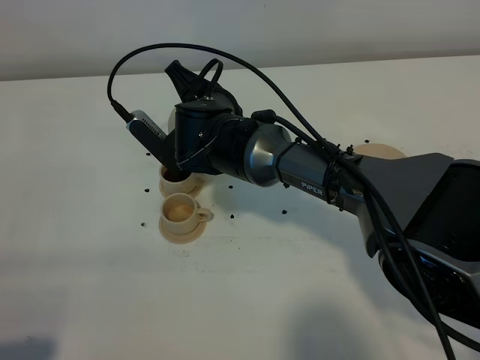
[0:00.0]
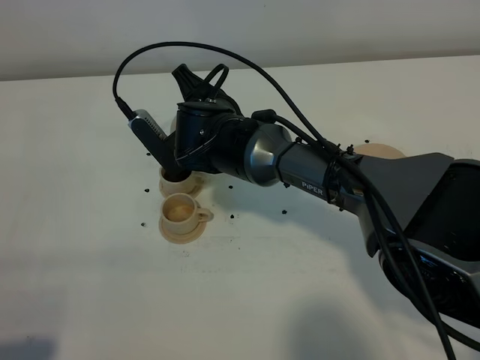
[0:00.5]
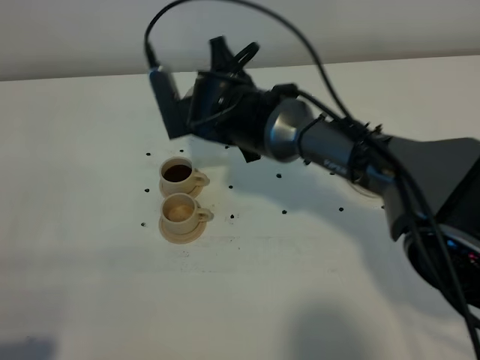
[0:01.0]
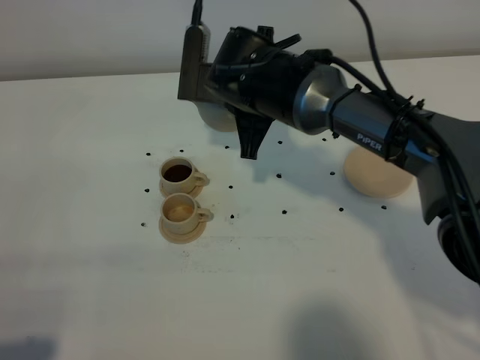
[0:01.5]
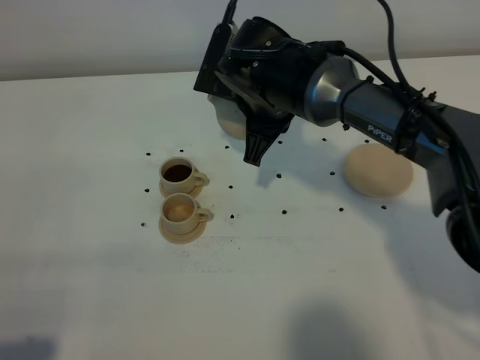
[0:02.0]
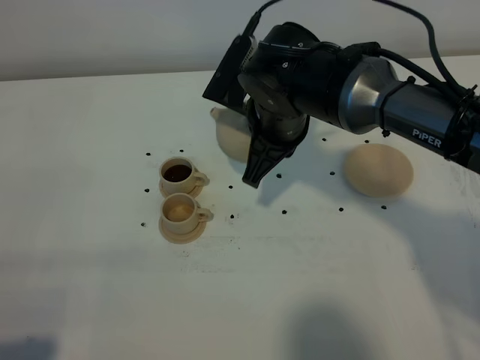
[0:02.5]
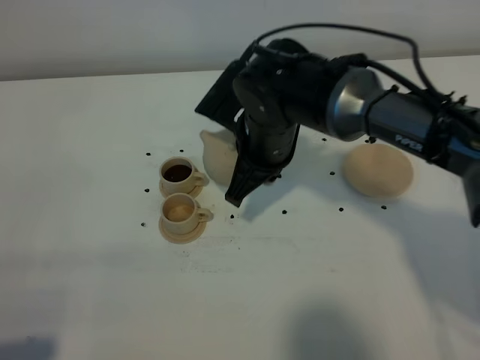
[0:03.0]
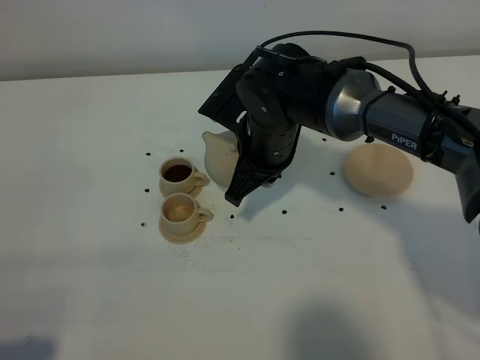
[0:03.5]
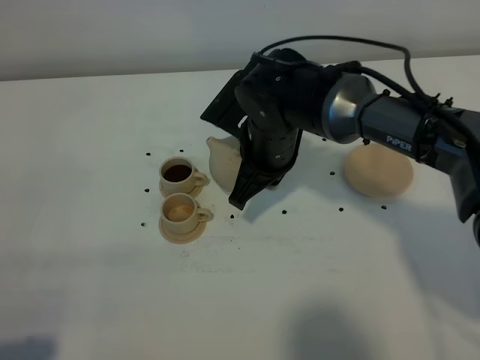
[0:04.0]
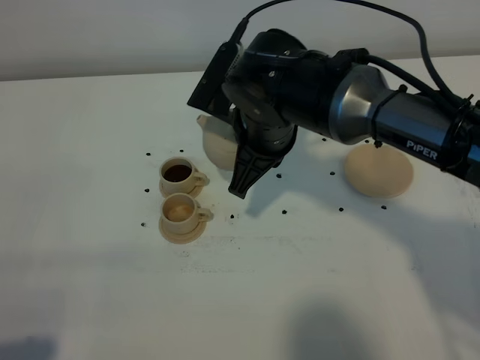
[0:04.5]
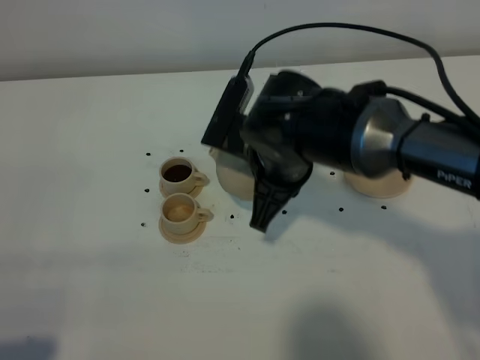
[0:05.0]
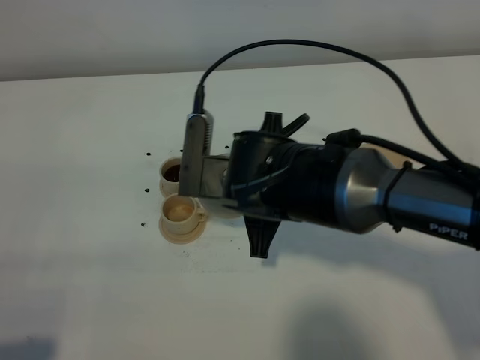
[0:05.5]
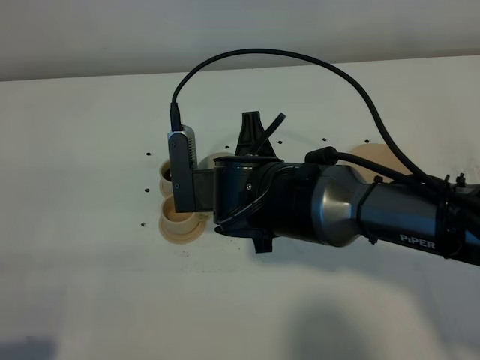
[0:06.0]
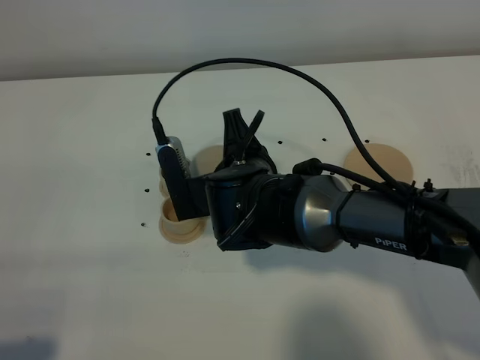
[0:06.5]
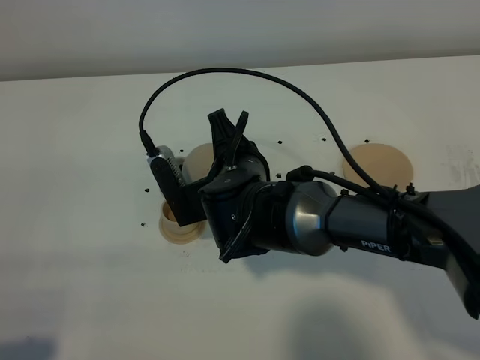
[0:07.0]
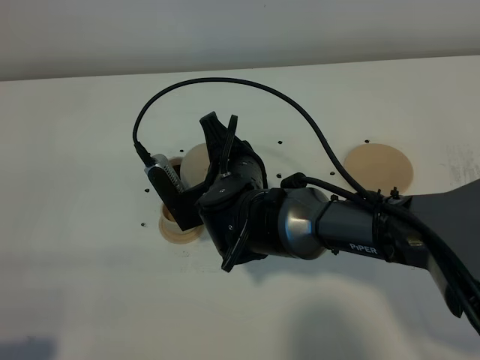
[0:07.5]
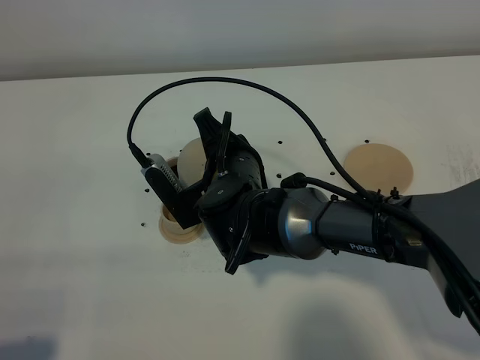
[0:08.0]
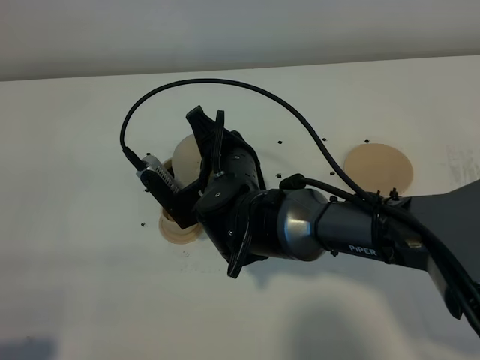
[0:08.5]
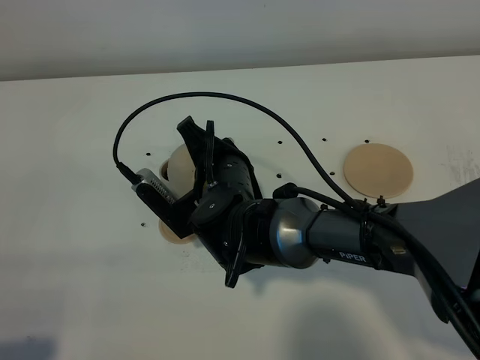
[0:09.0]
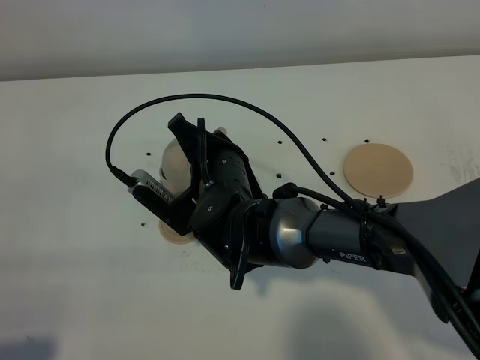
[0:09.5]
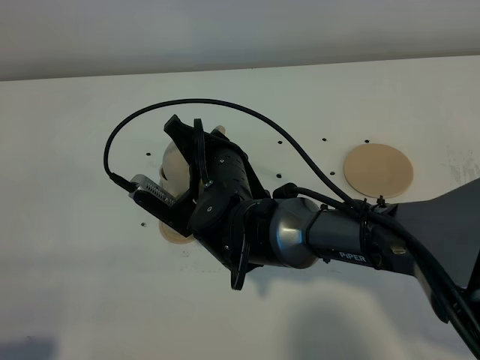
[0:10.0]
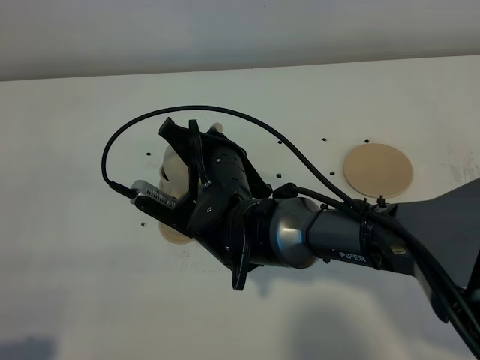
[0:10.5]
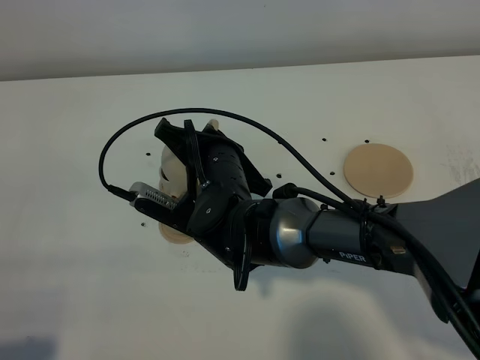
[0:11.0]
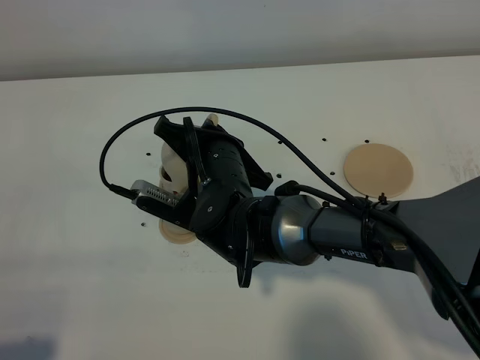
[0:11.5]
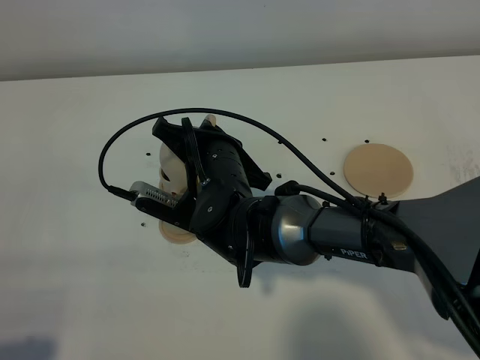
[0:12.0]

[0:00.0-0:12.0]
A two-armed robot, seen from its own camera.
Task of the whole recording: grasp the brown teapot and pour the tea into the two brown teacups one by one, put the brown teapot back in its original place.
0:00.0 to 0:02.0: The right gripper moves to the right, approximately 5 cm.
0:04.0 to 0:06.0: The right gripper travels backward by some 10 cm.
0:08.0 to 0:10.0: The grippers stay close to where they were, moving slightly.
0:10.0 to 0:12.0: The grippers make only small movements.

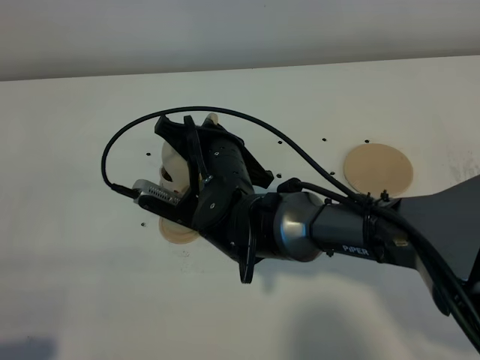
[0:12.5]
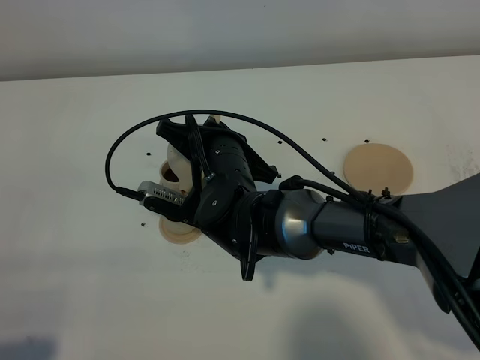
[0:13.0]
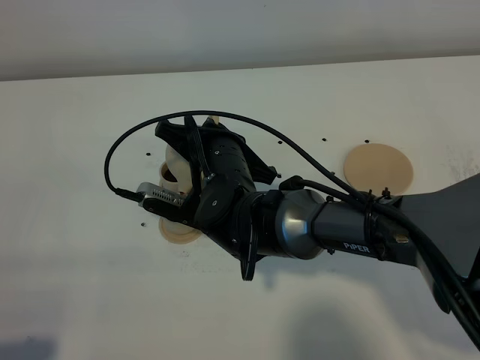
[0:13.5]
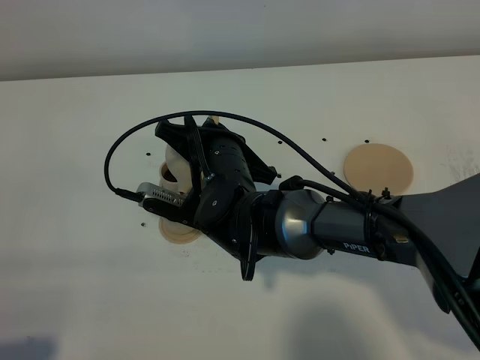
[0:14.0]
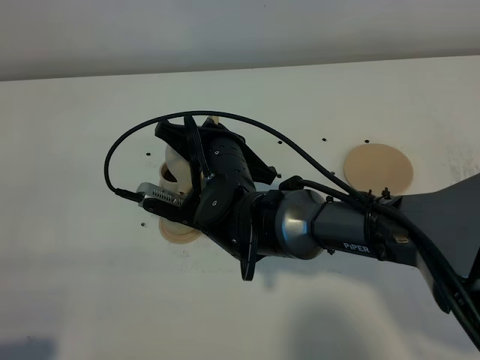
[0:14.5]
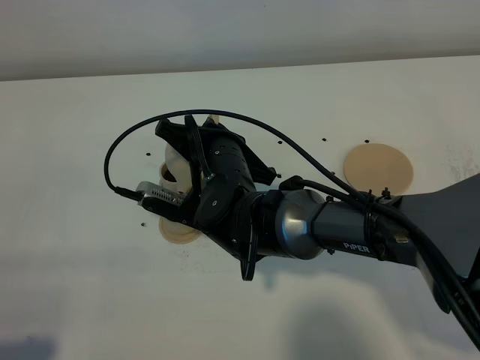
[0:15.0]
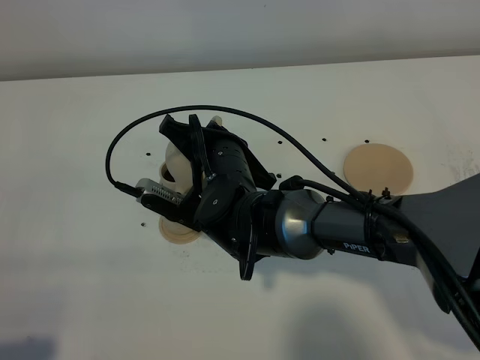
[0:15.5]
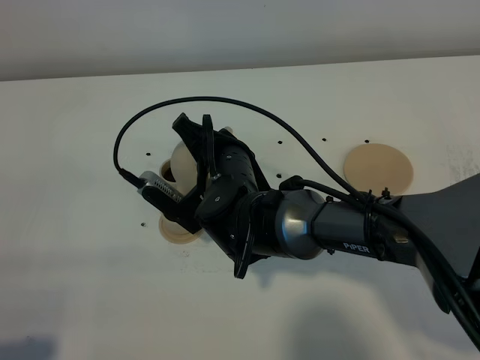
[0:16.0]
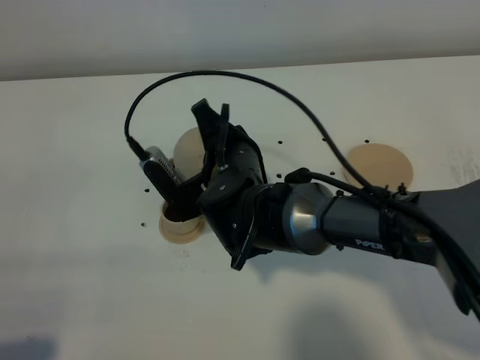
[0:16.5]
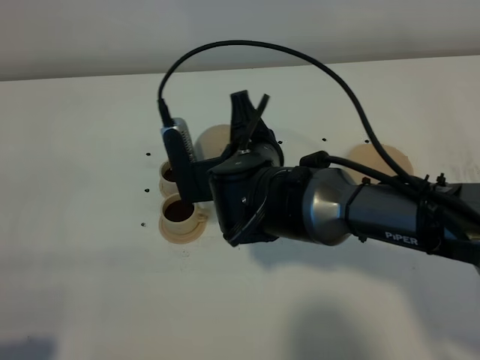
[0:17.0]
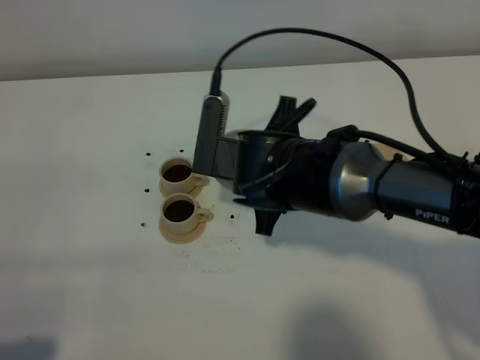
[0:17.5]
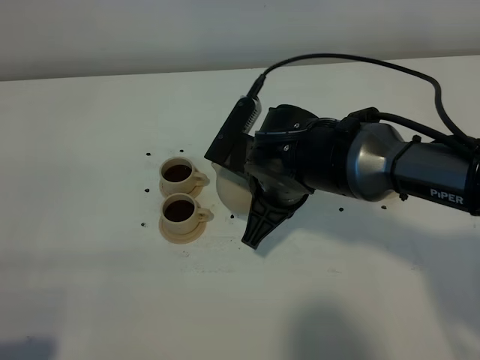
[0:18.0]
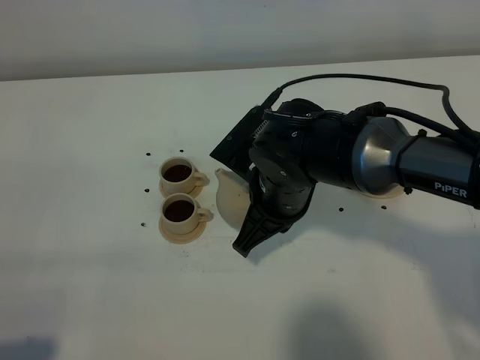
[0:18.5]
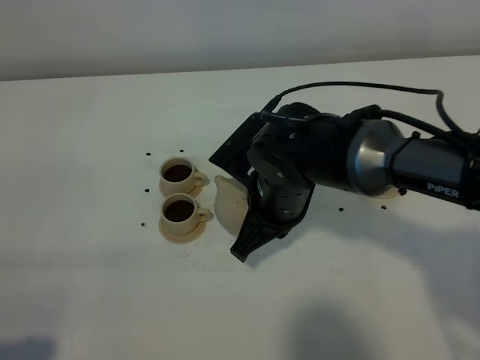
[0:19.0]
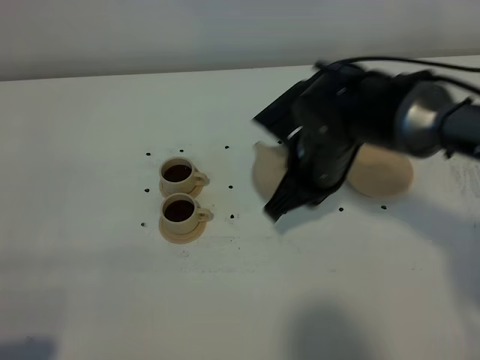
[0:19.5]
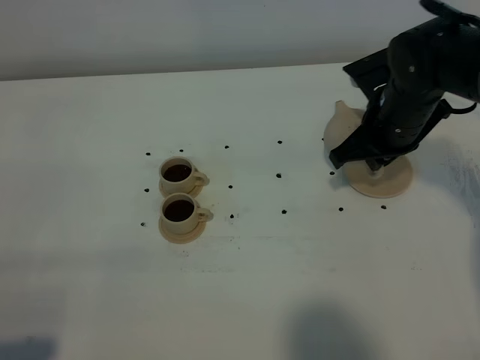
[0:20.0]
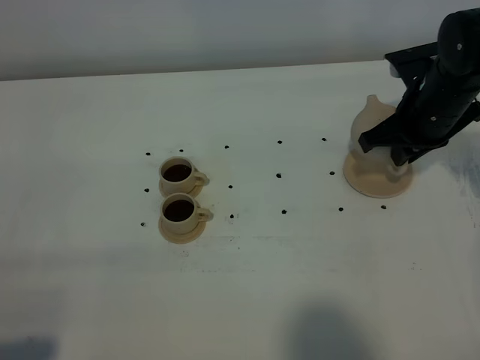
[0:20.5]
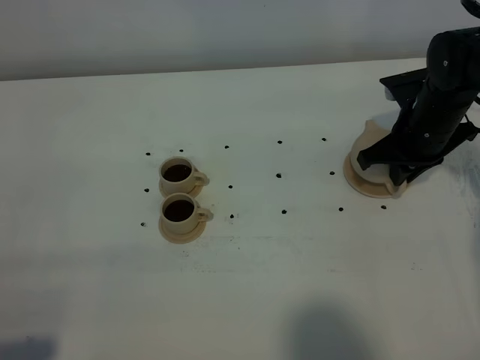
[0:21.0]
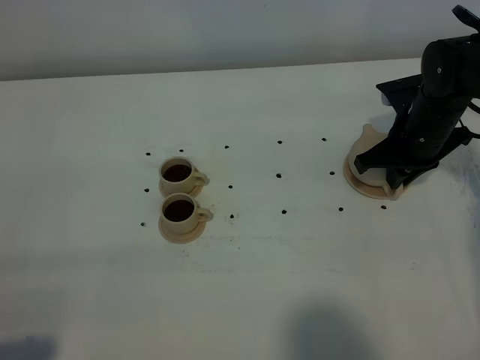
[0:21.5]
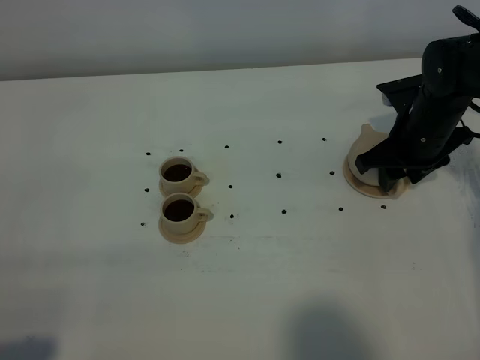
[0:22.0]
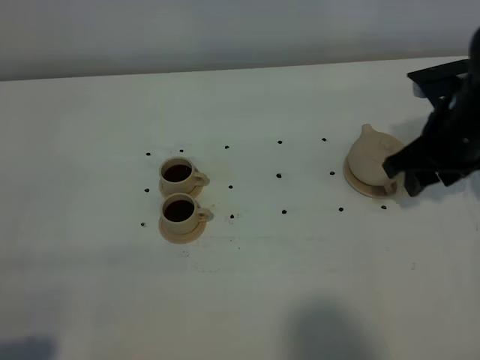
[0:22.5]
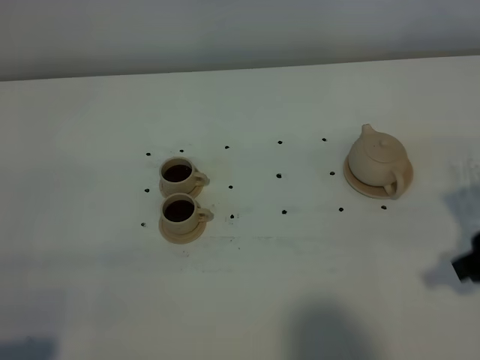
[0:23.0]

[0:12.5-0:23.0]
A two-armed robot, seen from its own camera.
Task of the whole recording: grasp the brown teapot and pour the tea into the two brown teacups one by one, put the brown teapot back in its original place.
Step, 0:12.5 to 0:17.0: Pour tea into the teacup with the right gripper.
0:12.5 to 0:14.5: The two grippers keep their place.
0:16.5 to 0:19.0: The right gripper shifts by roughly 5 cm.
0:19.0 to 0:21.0: The right gripper is displaced to the right and forward by some 20 cm.
0:21.0 to 0:23.0: The right gripper moves backward, some 20 cm, and opens up.

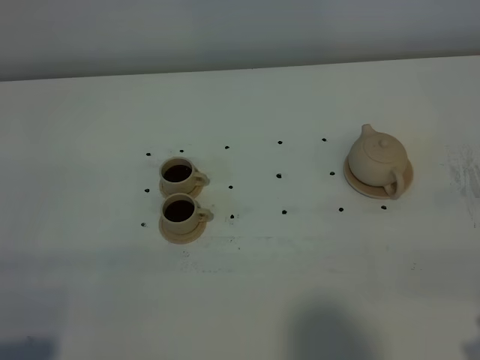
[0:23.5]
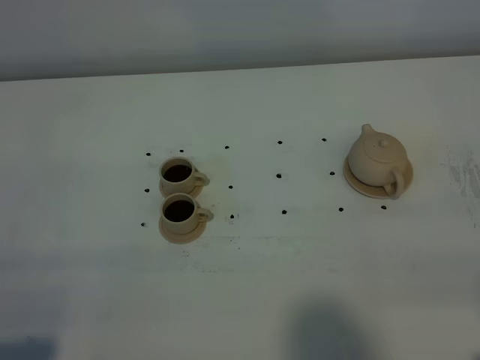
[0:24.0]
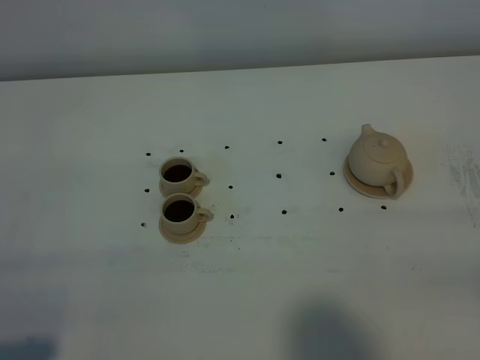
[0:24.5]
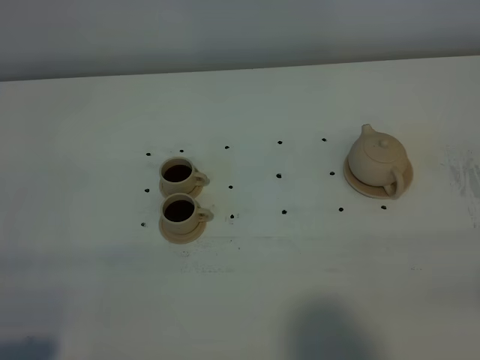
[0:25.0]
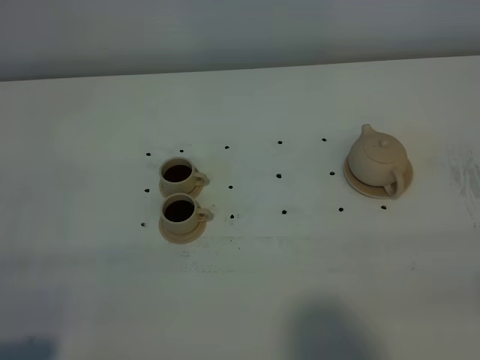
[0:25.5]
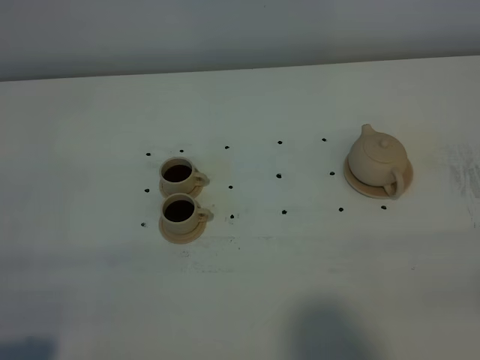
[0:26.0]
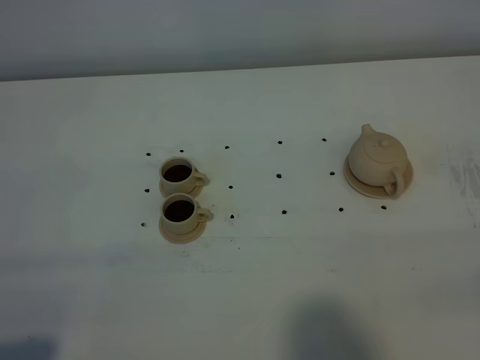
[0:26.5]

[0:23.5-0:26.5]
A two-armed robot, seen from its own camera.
Task of the whole recording: grasp the brown teapot and pour the tea into the two brown teacups one by one, put the brown teapot back in its original place.
0:25.0 to 0:26.5: The two grippers keep their place.
